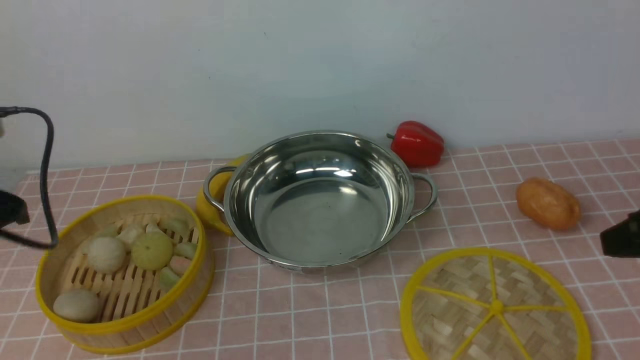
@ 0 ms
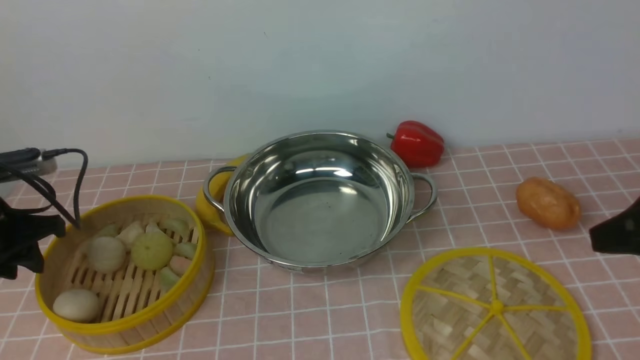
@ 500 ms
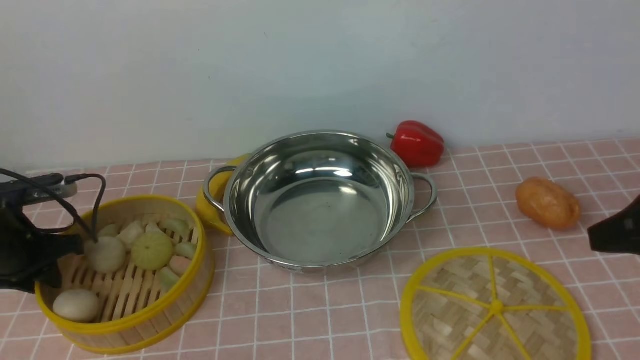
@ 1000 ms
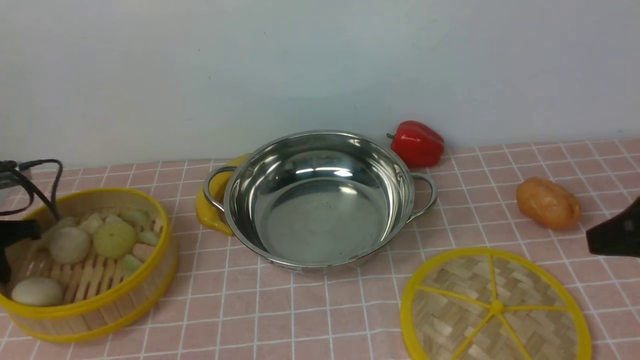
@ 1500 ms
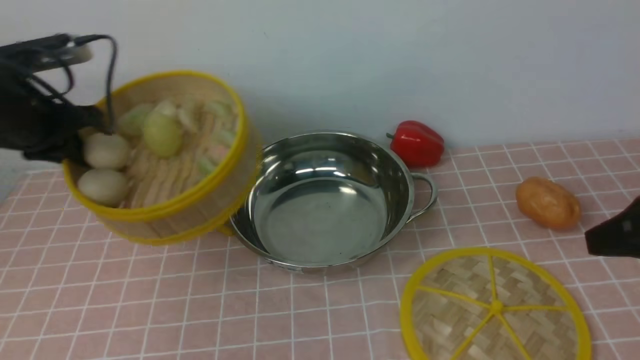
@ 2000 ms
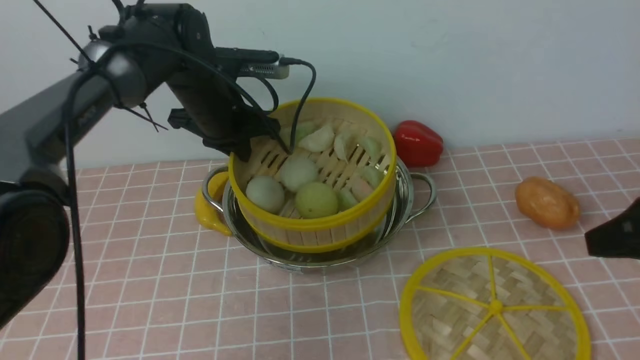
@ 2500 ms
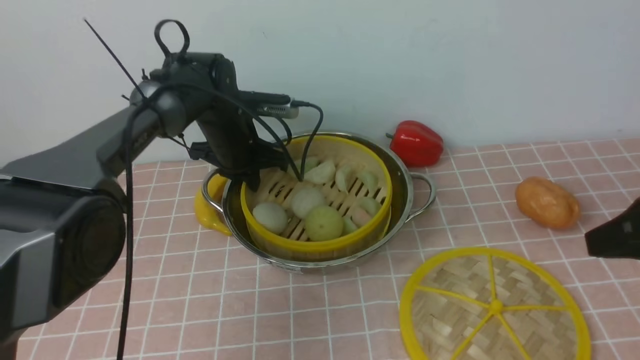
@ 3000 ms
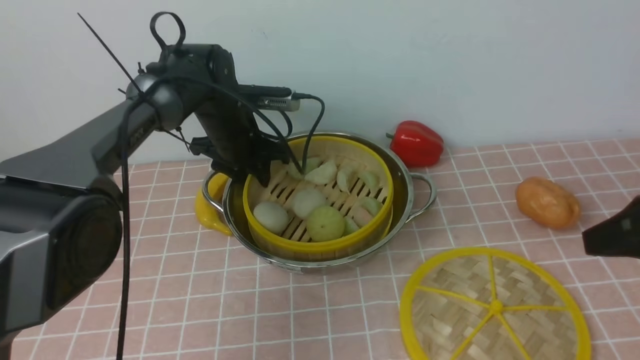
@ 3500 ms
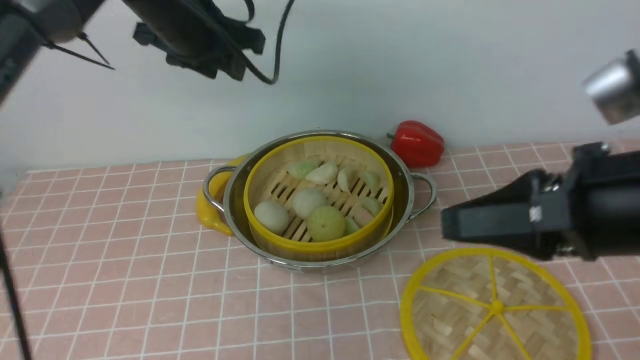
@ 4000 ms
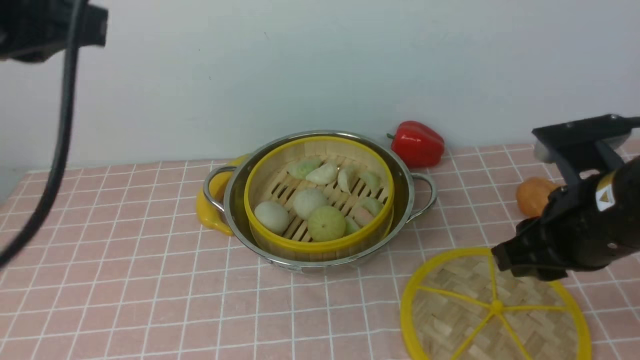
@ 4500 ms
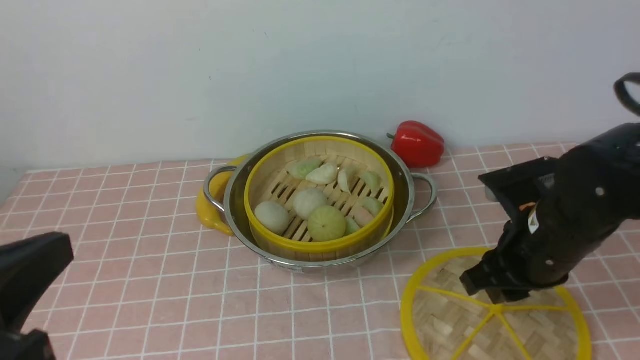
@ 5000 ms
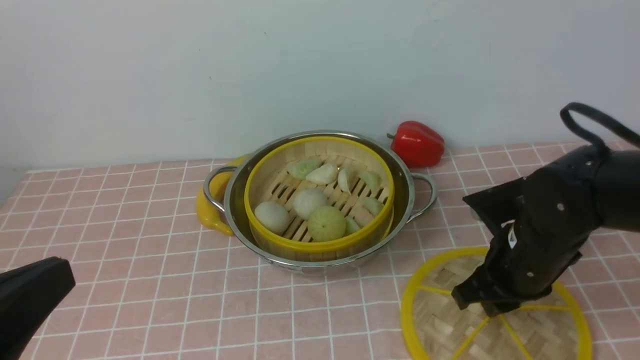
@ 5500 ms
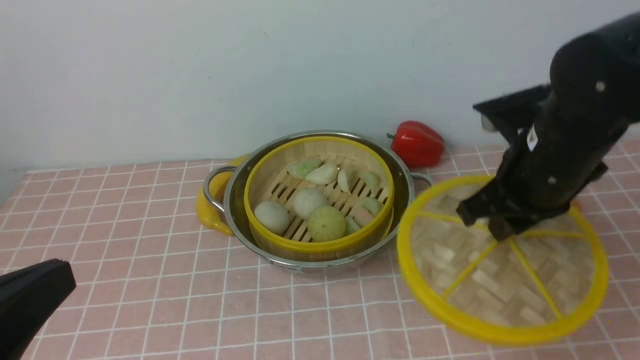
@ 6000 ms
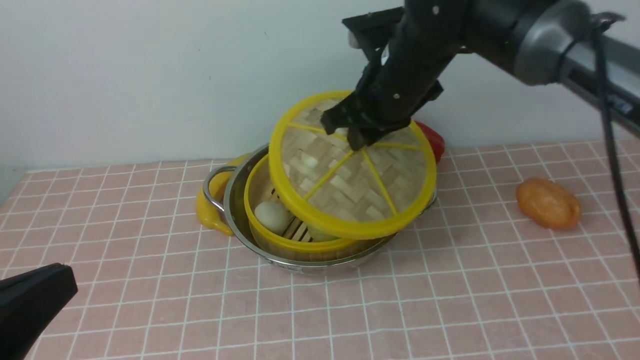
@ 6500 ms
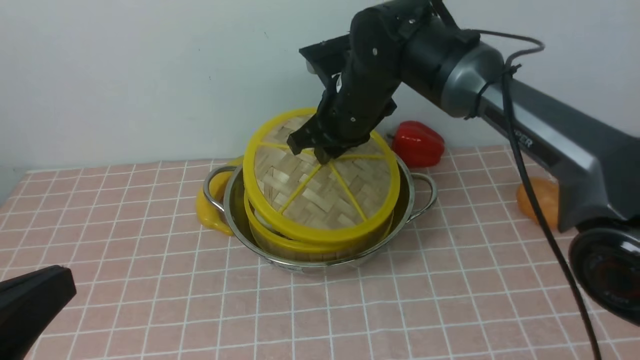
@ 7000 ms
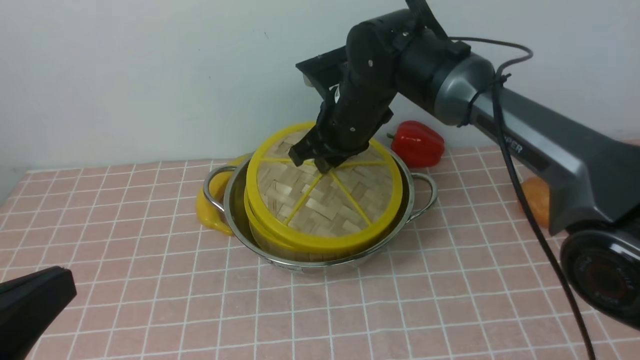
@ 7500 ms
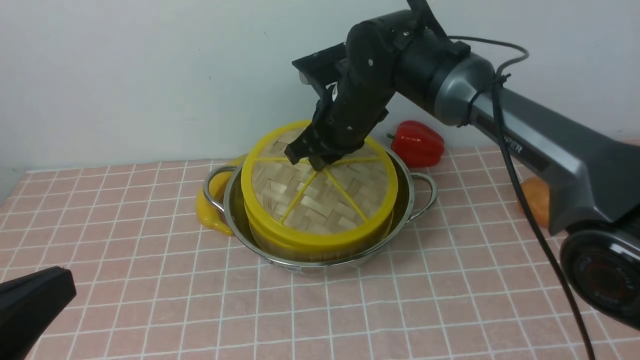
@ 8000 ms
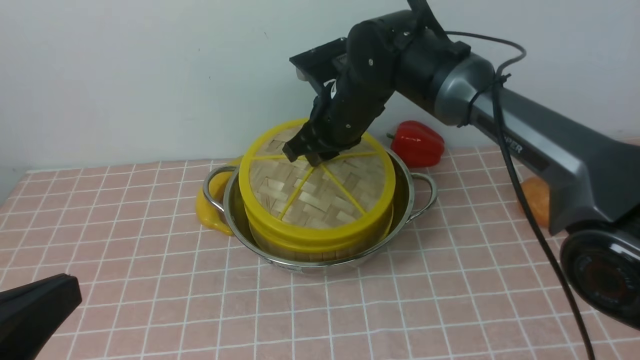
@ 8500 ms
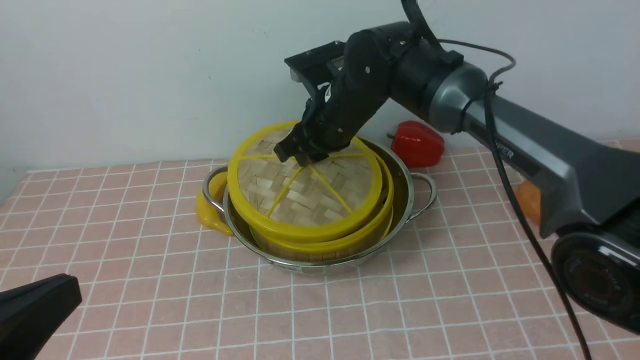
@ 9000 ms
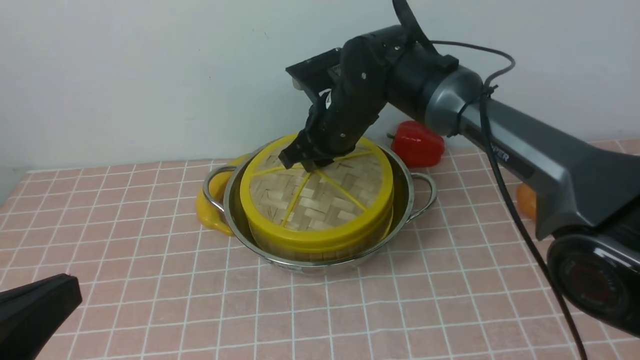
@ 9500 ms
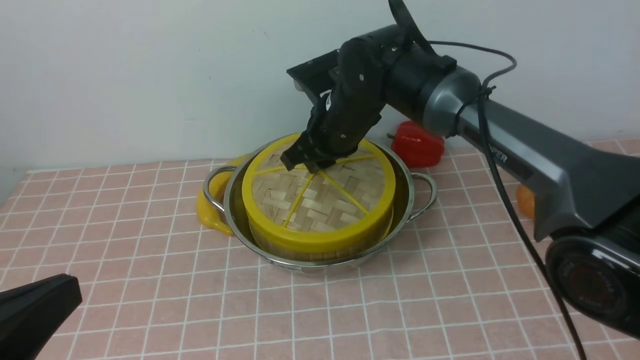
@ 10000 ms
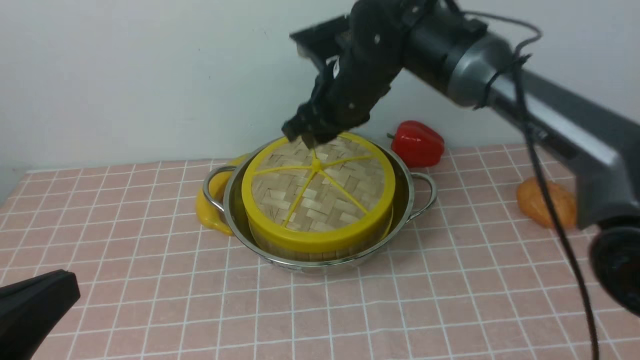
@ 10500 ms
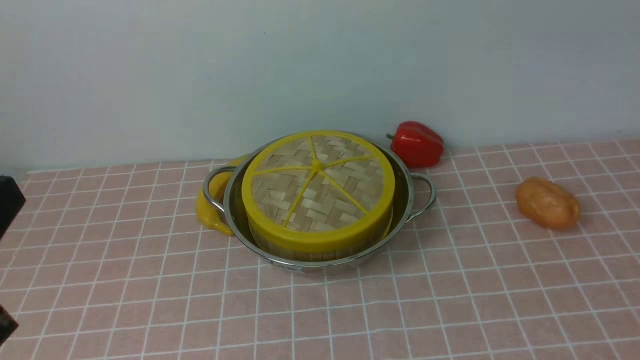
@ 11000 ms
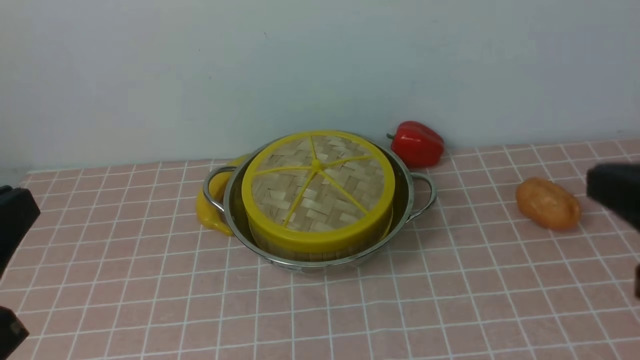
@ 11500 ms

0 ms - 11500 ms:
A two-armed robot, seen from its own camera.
Task of the whole recording: place the steamer in the pot on the pink tablecloth, and put the lid on the steamer.
Step, 2000 ms - 3500 ms: use the left arm to put the steamer into the iron steamer pot in the middle.
Step, 4000 ms - 5500 ms: use the right arm to lift the lid of the steamer.
Step, 6000 ms - 10000 ms: use the right arm to place the steamer lid on the steamer.
0 ms - 2000 ms: The left gripper travels forward by approximately 15 cm, and closes up.
2000 ms - 4000 ms: The right gripper goes about 5 cm to the left. The left gripper heads to the right, covering approximately 20 cm, and opens up.
4000 ms - 6000 ms: The left gripper goes approximately 40 cm backward, and closes, while the right gripper shifts about 15 cm forward and downward.
6000 ms - 7500 ms: The right gripper heads to the left and forward, covering some 20 cm.
7500 ms - 9500 ms: There are only small adjustments of the grippers.
9500 ms - 11500 ms: The right gripper is displaced backward, to the right and upward by about 40 cm, and closes up.

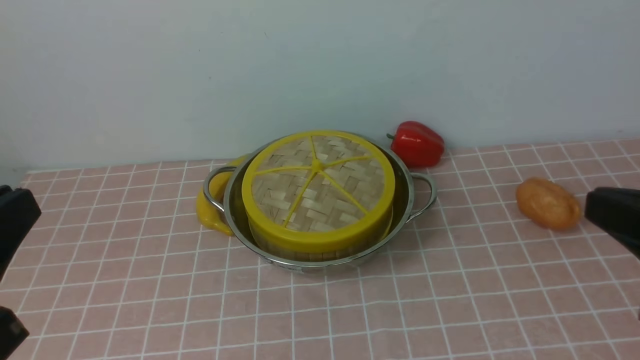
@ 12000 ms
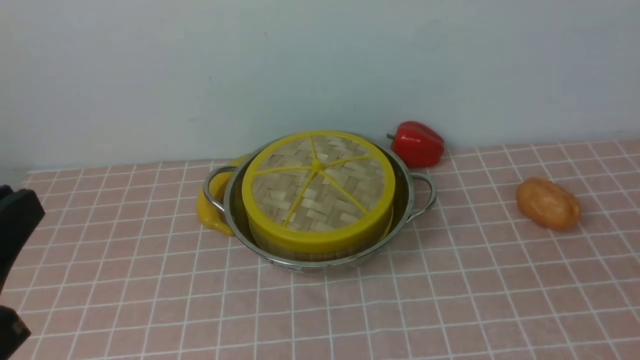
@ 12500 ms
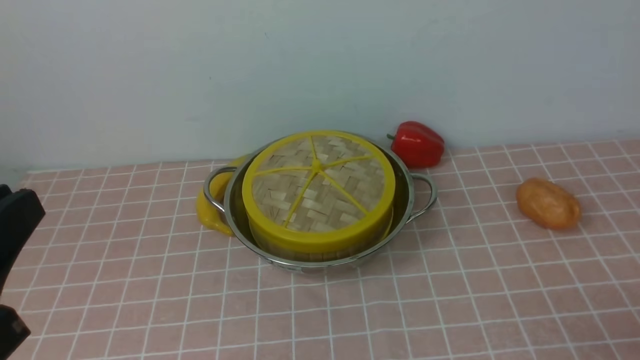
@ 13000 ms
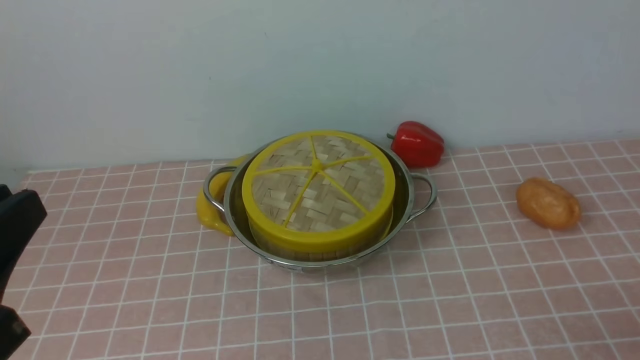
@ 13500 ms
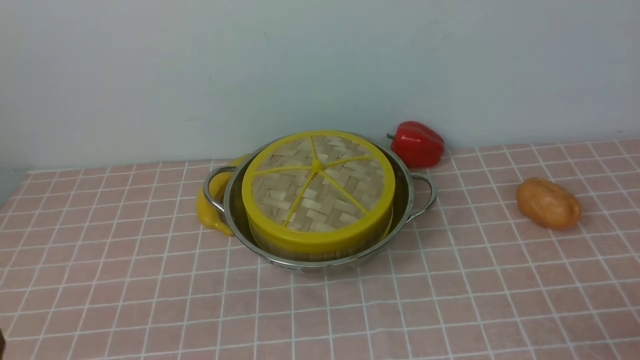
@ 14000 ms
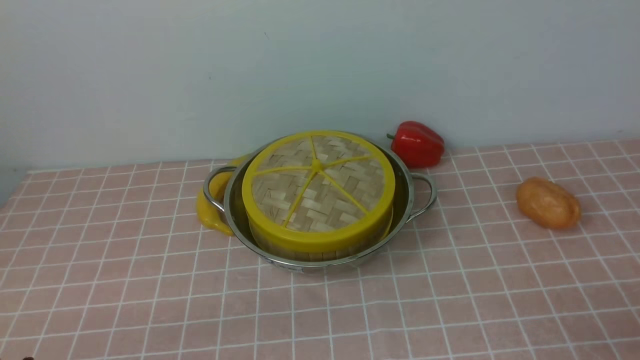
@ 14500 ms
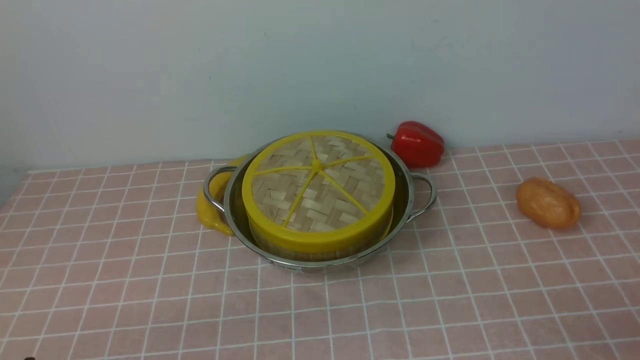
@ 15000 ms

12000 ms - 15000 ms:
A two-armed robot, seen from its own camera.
Task of the whole recording: place the steamer in the pot on the pink tablecloth, and put the lid on the steamer.
12000 ms - 13500 ms: The right gripper shifts roughly 15 cm downward, to the right and backward, and opens up.
13500 ms - 15000 ms: The left gripper heads downward, covering approximately 15 cm.
